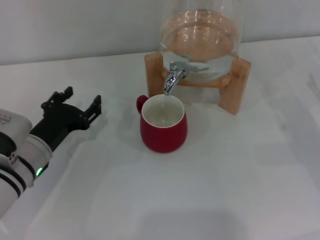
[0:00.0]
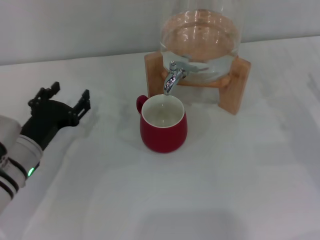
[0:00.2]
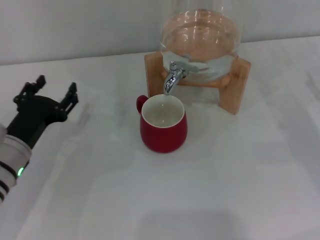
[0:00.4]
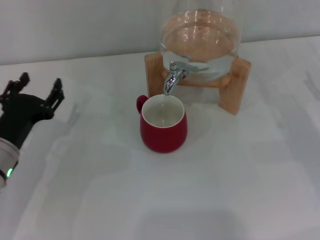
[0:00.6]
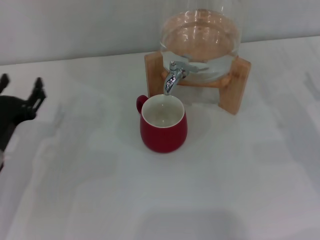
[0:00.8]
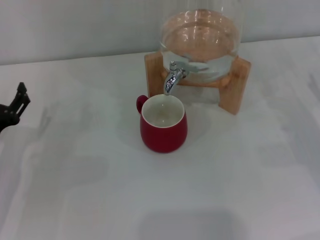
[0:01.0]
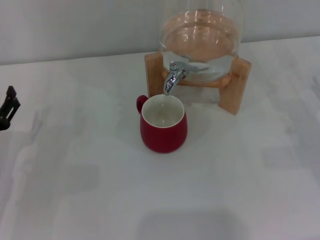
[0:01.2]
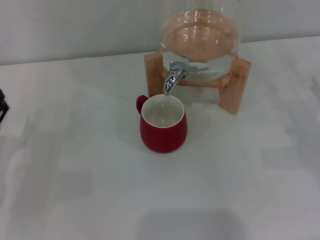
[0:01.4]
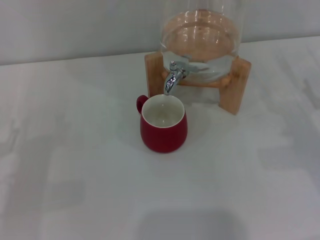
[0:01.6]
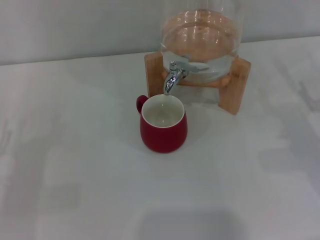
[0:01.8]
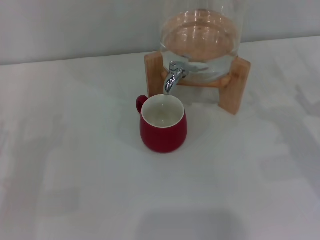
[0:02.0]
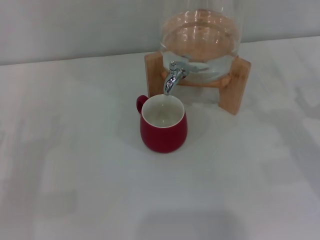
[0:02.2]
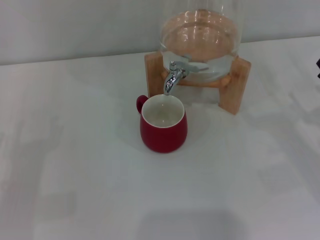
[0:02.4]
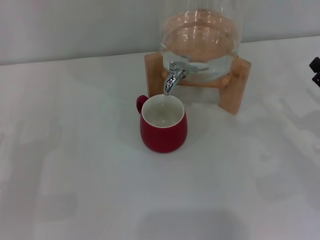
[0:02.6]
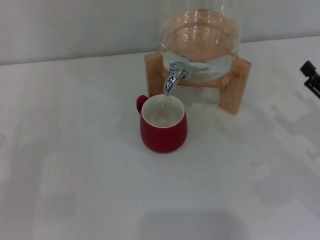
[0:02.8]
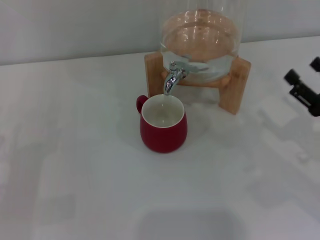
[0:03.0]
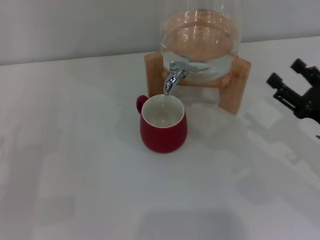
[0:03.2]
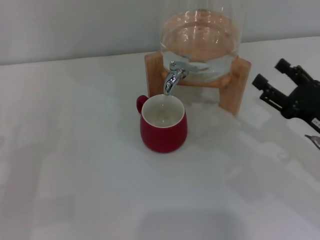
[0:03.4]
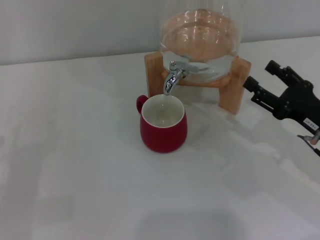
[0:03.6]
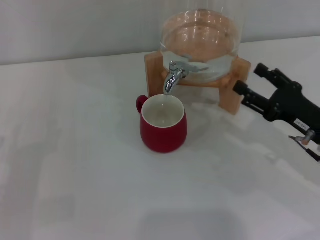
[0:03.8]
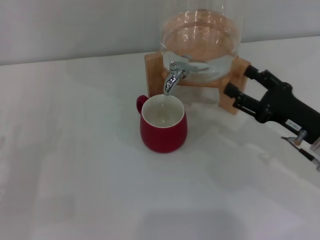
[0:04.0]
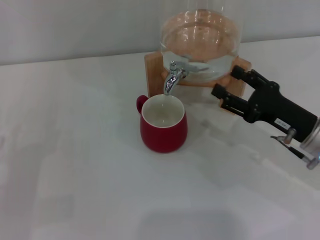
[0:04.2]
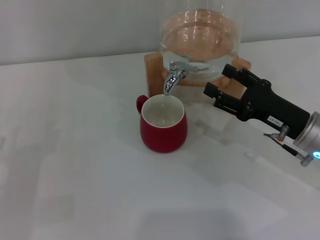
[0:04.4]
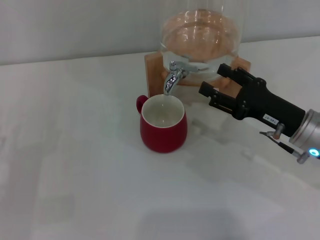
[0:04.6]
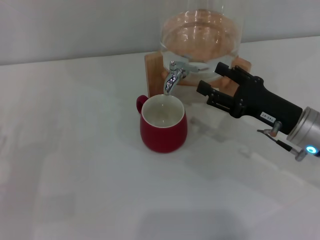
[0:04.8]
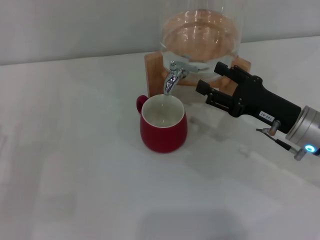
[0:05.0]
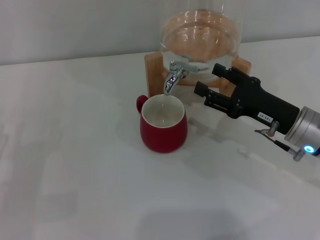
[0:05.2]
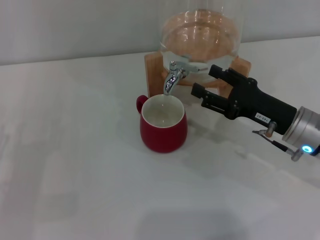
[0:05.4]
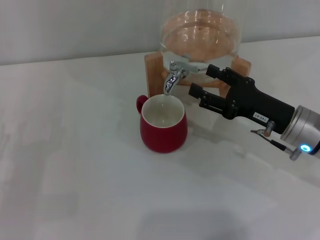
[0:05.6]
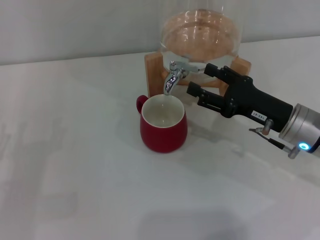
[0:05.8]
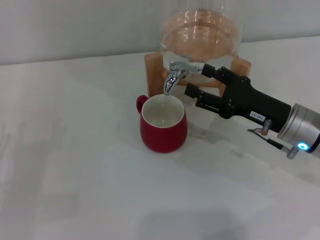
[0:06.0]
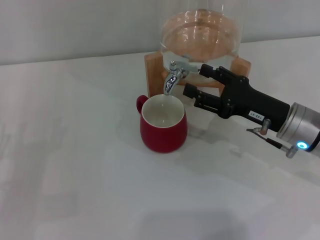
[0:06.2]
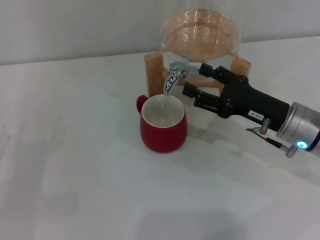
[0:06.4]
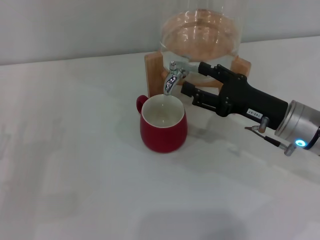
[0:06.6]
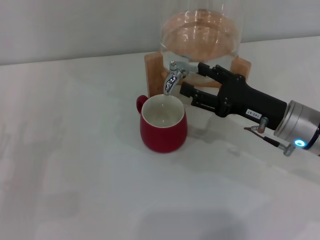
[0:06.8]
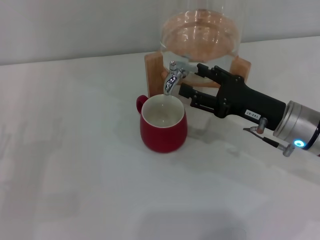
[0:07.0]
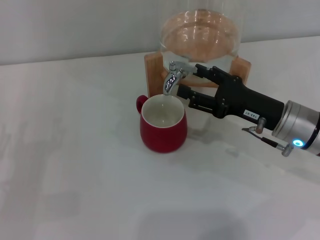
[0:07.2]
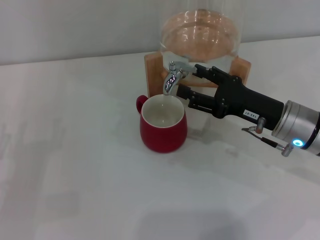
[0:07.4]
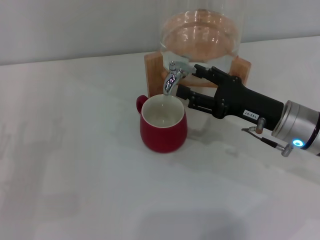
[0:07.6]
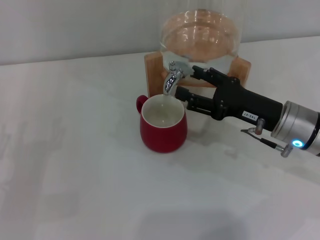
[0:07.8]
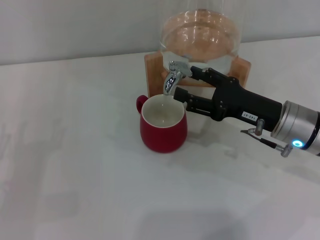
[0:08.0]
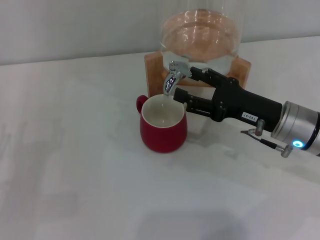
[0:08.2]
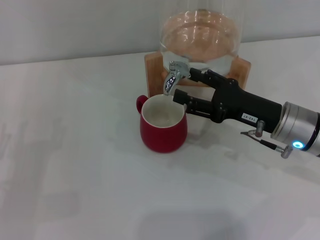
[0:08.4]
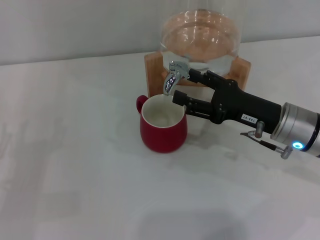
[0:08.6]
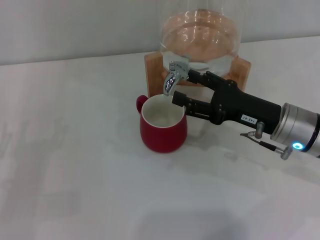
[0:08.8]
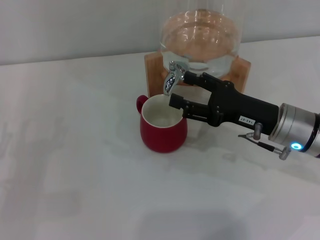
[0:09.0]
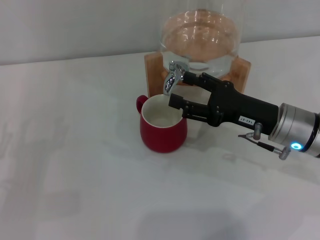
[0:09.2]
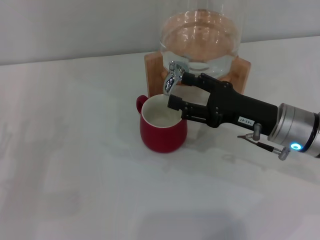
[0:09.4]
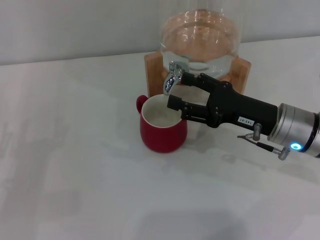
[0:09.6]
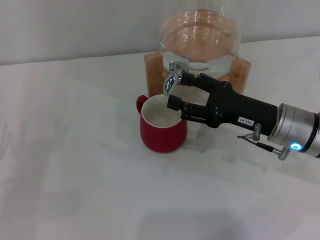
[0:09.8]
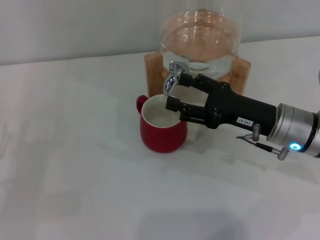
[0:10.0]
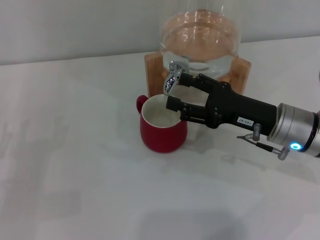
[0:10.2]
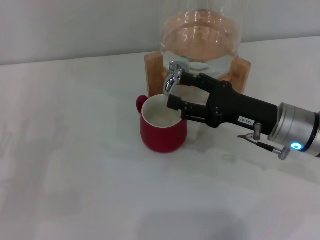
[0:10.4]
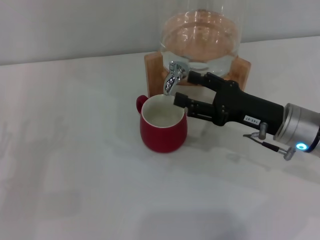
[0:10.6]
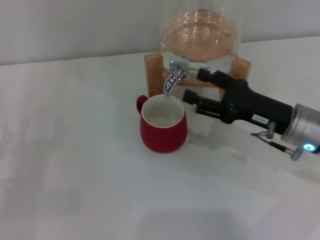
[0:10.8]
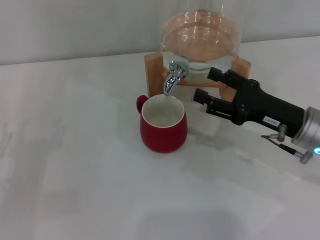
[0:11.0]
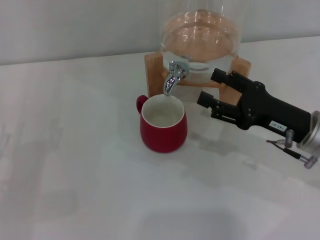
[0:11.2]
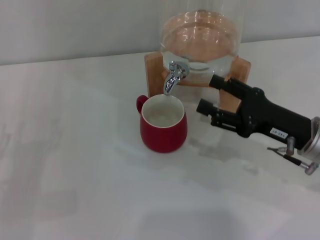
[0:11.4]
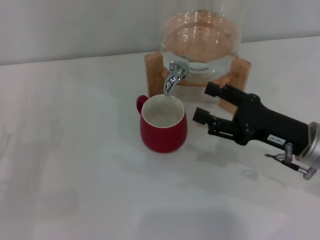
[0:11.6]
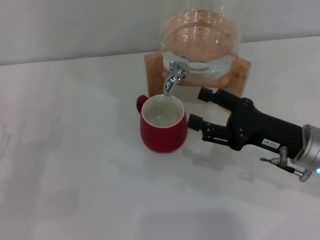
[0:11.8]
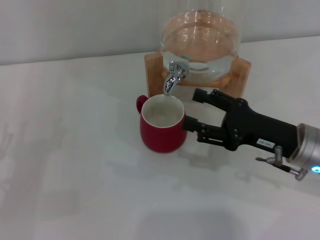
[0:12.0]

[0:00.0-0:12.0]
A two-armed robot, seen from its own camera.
Task of the whole recording: the left gripper pick up the red cup and place it horizontally under the faucet, the right gripper turn on the faucet to fill the cup, and then turn off the faucet.
0:00.0 to 0:01.6: The left gripper goes approximately 10 cm to the left and backward.
0:01.6 to 0:03.0: The right gripper moves roughly 5 cm.
0:03.0 to 0:04.4: The right gripper travels to the left by approximately 5 cm.
0:04.4 to 0:06.0: The grippers stay close to where they were, moving slightly.
0:06.0 to 0:07.6: The two grippers keep their place.
0:07.6 to 0:09.0: Both grippers stay about where they are.
0:09.0 to 0:10.4: Both grippers stay put.
0:10.4 to 0:12.0: There are only small adjustments of the grippers.

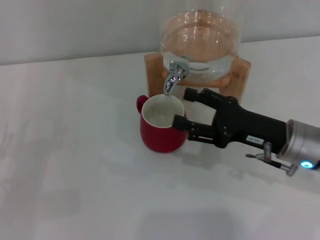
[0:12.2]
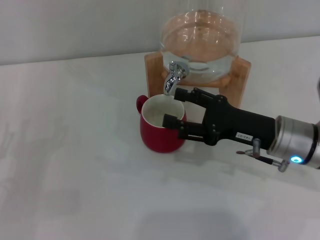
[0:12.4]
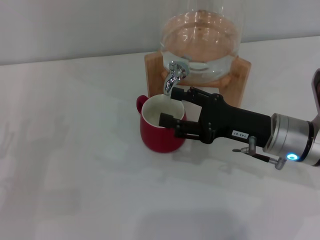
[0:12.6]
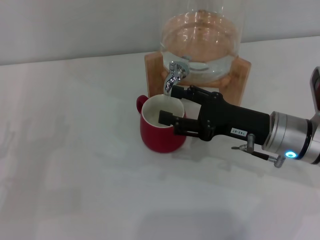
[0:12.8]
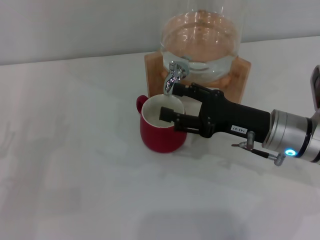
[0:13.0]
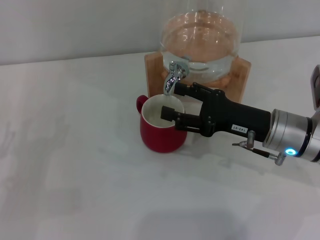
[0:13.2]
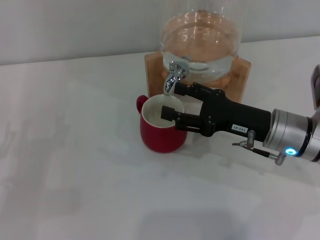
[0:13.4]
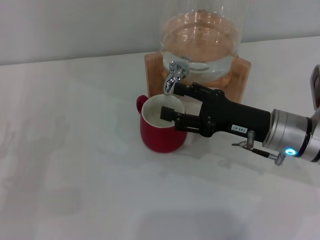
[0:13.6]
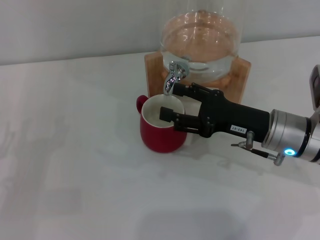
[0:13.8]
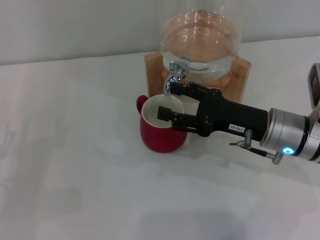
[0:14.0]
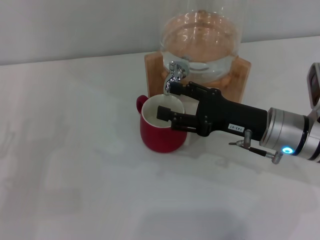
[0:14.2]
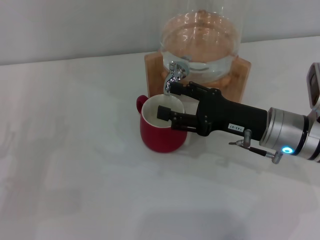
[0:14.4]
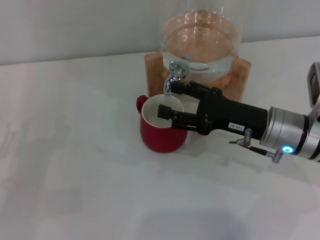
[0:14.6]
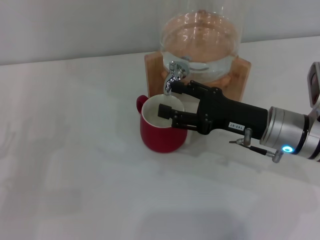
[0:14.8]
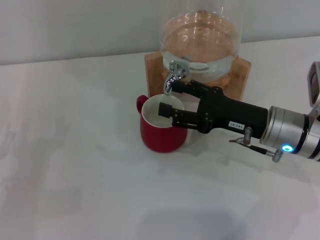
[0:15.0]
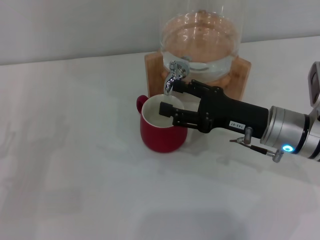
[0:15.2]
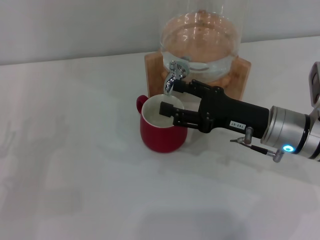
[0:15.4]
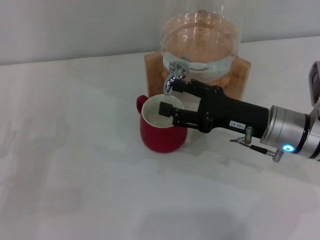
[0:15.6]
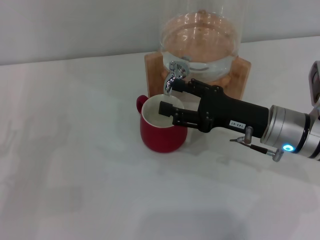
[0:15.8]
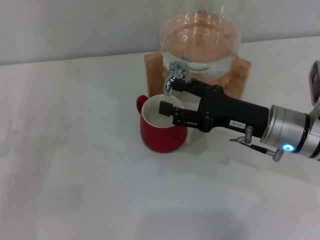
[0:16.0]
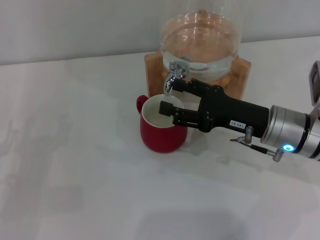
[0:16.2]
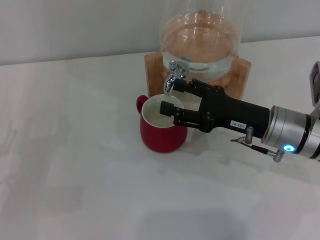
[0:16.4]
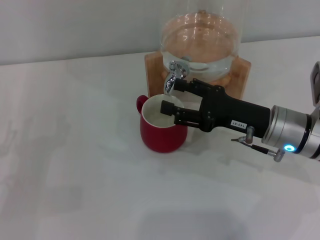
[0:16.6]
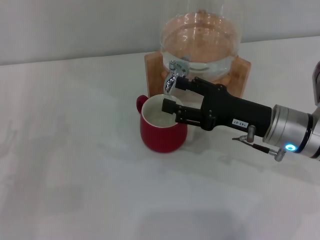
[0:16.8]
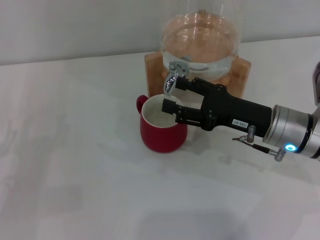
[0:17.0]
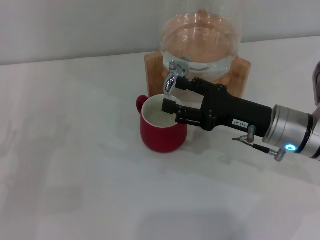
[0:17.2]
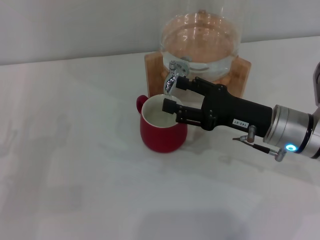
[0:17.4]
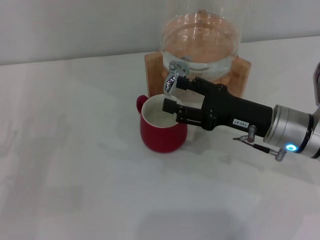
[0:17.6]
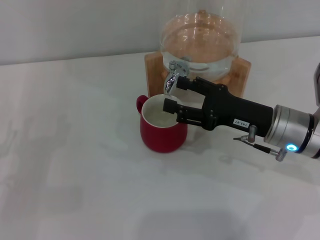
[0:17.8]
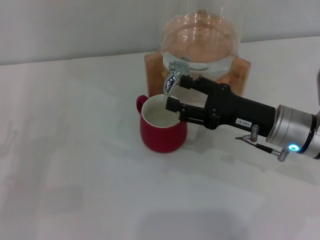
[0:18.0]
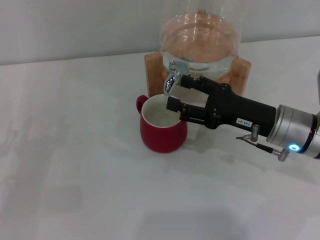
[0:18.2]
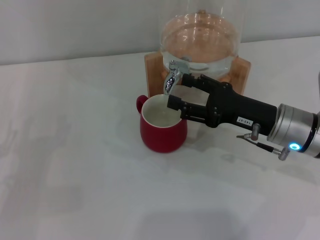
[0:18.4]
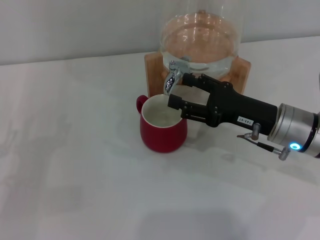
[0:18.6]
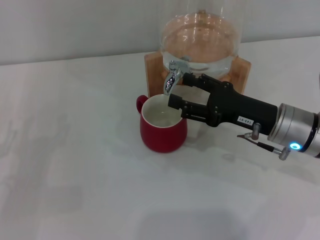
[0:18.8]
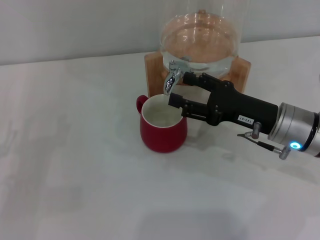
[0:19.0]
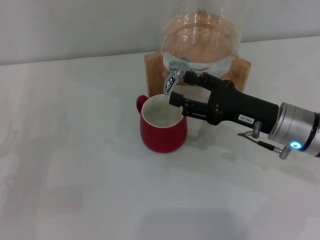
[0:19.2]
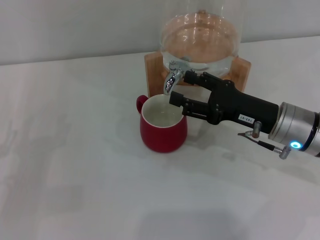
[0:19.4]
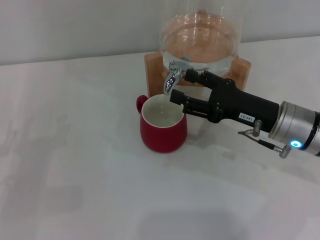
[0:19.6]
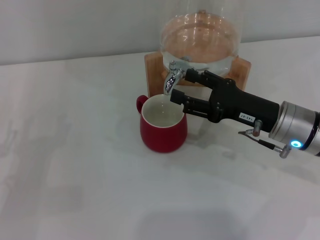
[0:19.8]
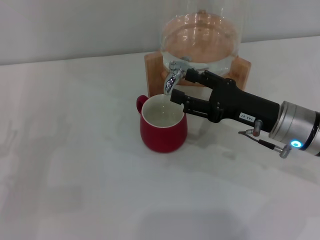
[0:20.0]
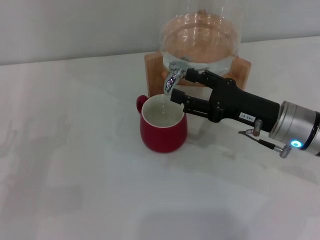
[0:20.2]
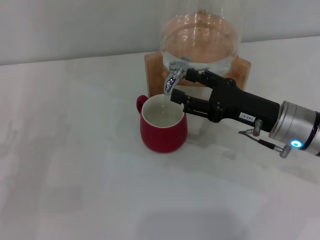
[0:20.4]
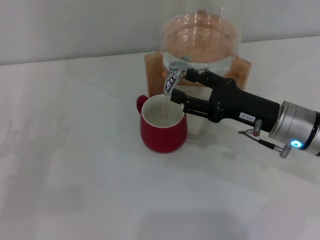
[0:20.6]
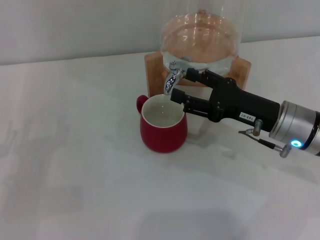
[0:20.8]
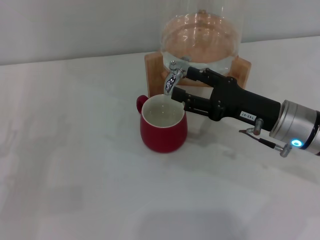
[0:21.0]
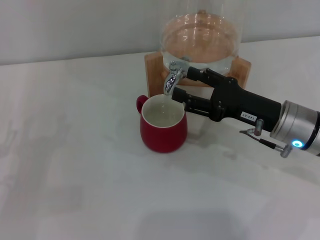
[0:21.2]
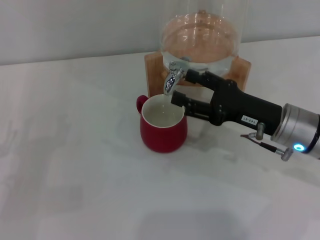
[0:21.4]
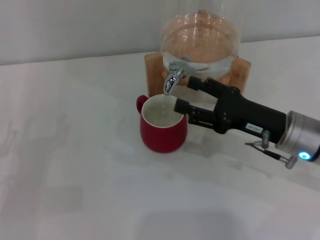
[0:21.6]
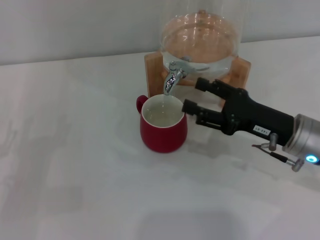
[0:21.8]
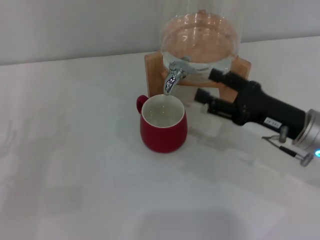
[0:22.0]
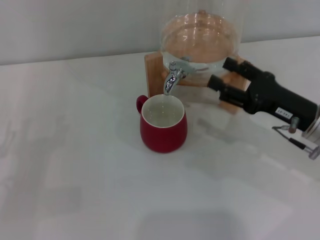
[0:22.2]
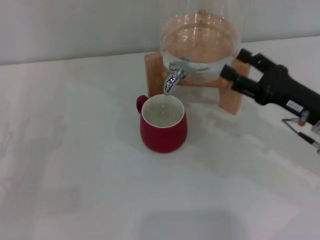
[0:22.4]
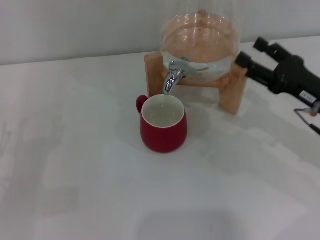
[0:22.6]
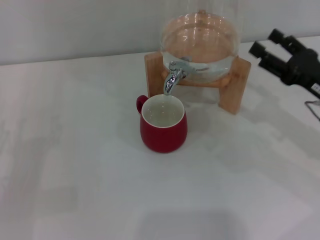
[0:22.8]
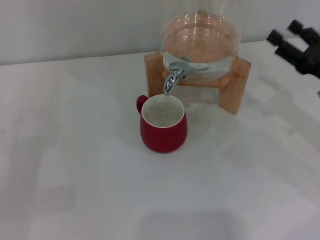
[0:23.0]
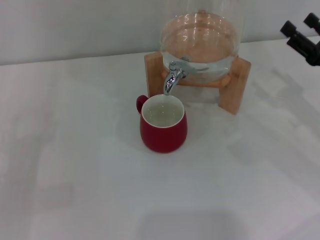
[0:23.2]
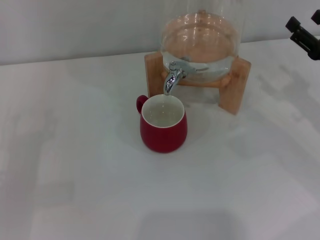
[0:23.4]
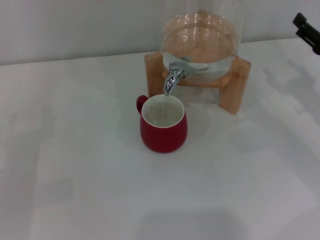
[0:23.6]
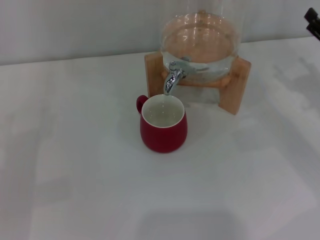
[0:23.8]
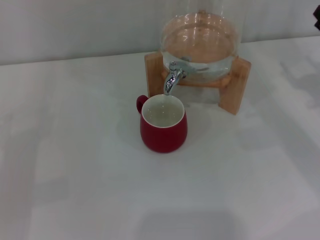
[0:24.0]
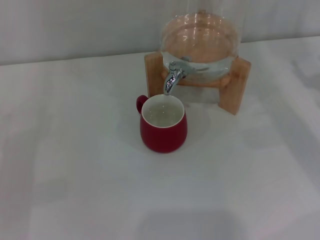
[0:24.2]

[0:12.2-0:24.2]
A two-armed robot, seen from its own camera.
Task of the whole recording: the left gripper pick up the red cup and place it horizontally under the faucet, the right gripper turn on the faucet to fill the cup, and then turn off the faucet.
Step, 0:14.2 to 0:22.0: Close the dispenser valve with the right gripper.
0:12.2 to 0:13.8: There are only small adjustments of the grippers.
0:13.8 to 0:18.2: Both grippers stay about where they are.
0:18.2 to 0:21.2: Both grippers stay put.
0:21.2 to 0:22.6: The right gripper is displaced to the right by approximately 5 cm.
0:22.6 to 0:24.2: The right gripper heads to the right, covering some 10 cm.
